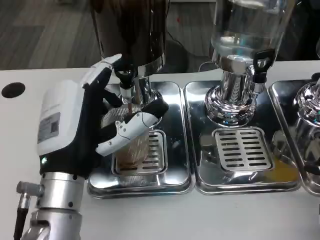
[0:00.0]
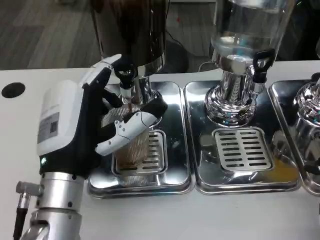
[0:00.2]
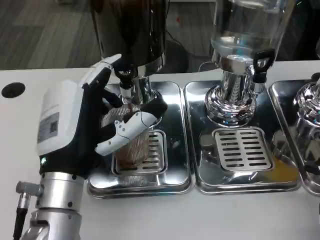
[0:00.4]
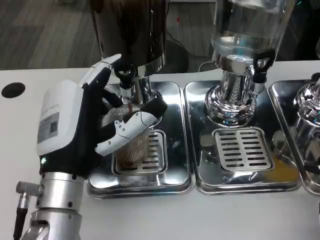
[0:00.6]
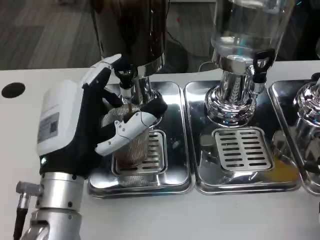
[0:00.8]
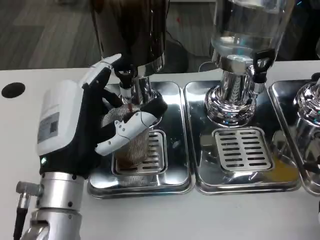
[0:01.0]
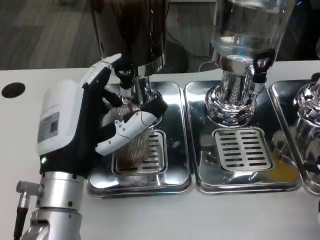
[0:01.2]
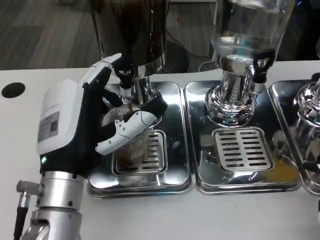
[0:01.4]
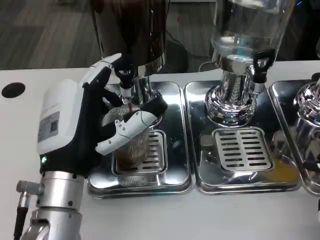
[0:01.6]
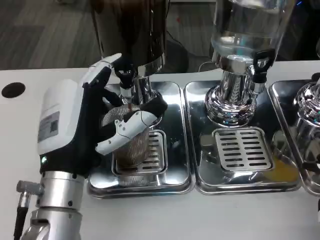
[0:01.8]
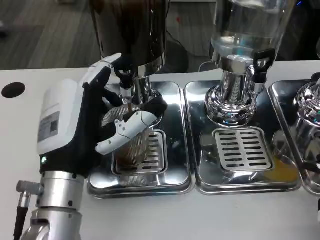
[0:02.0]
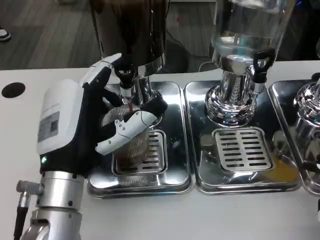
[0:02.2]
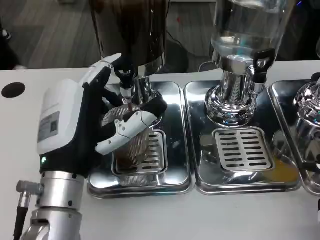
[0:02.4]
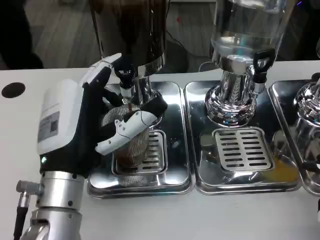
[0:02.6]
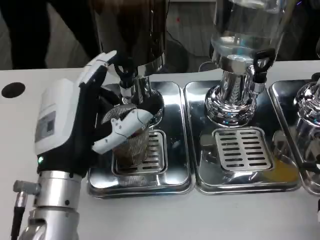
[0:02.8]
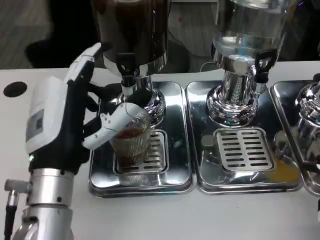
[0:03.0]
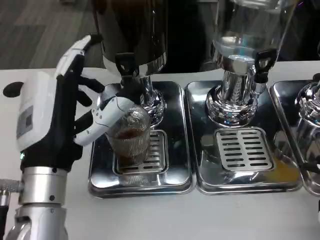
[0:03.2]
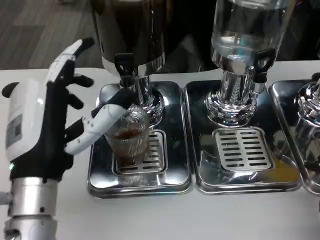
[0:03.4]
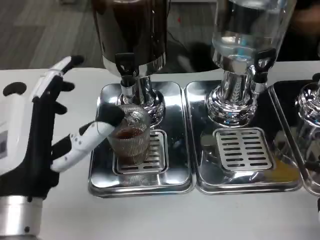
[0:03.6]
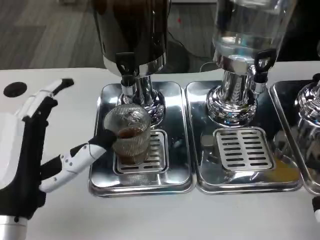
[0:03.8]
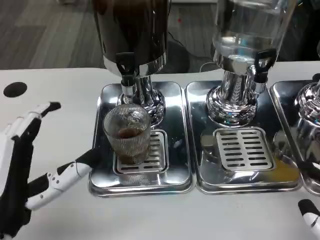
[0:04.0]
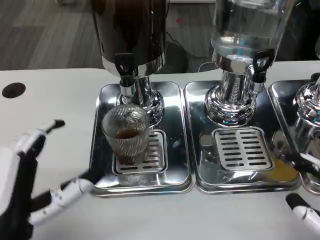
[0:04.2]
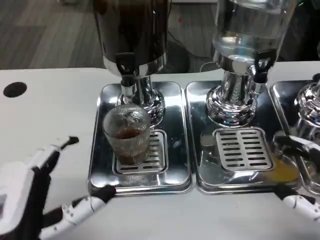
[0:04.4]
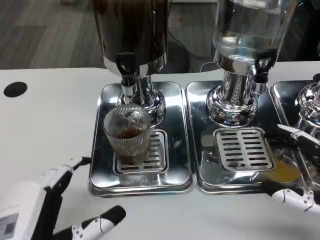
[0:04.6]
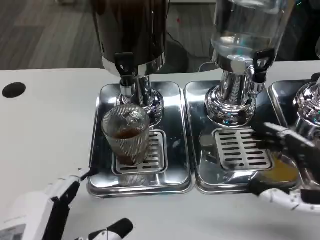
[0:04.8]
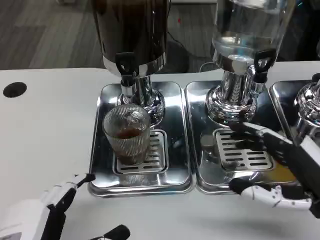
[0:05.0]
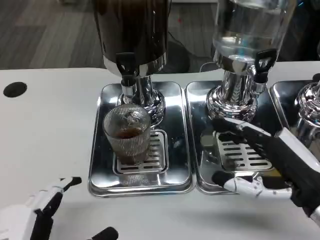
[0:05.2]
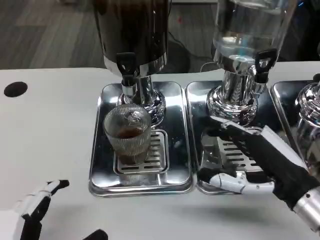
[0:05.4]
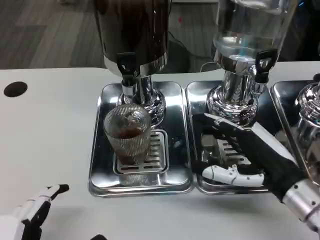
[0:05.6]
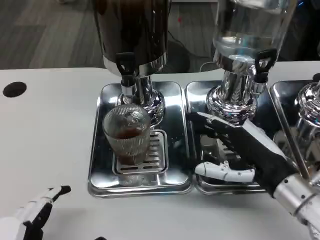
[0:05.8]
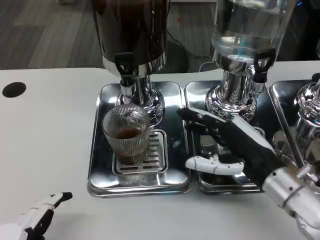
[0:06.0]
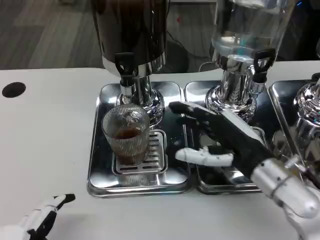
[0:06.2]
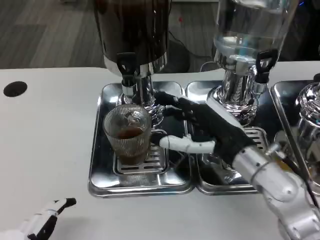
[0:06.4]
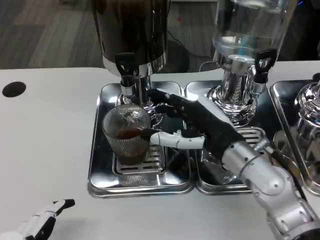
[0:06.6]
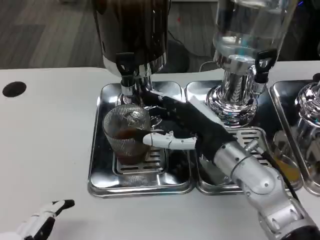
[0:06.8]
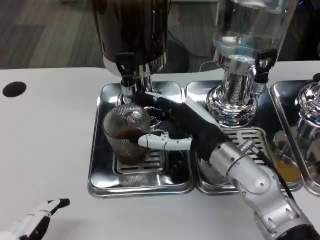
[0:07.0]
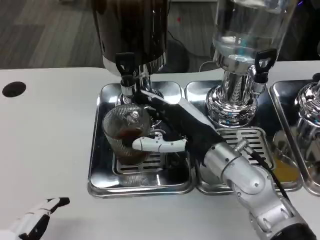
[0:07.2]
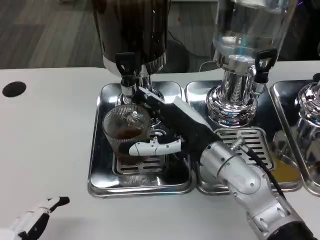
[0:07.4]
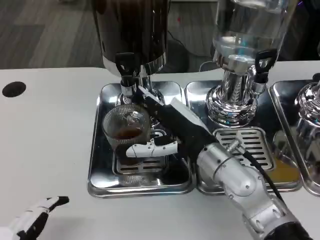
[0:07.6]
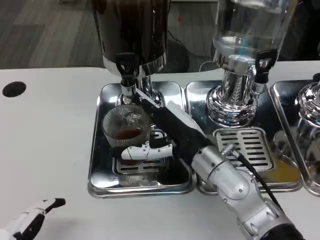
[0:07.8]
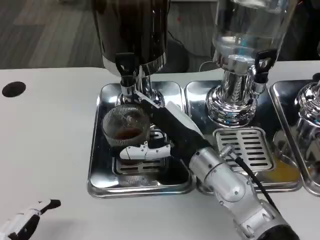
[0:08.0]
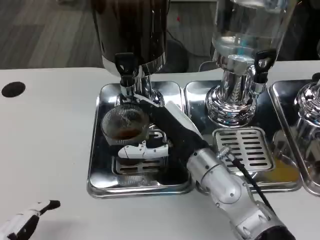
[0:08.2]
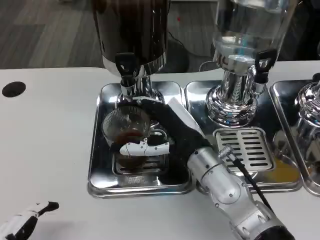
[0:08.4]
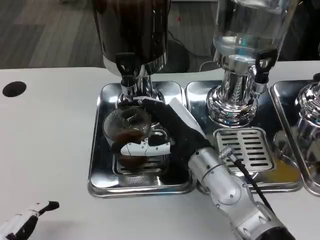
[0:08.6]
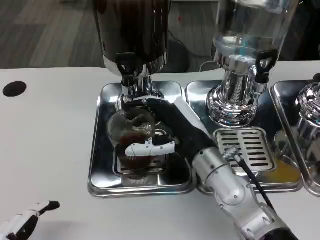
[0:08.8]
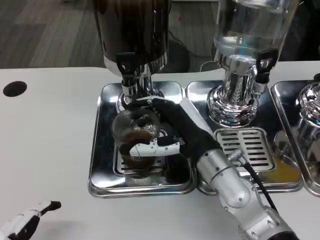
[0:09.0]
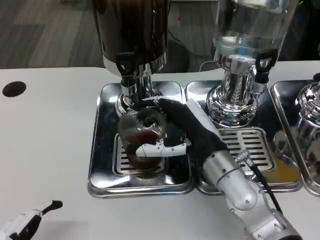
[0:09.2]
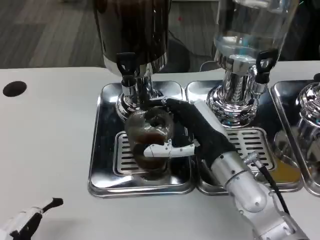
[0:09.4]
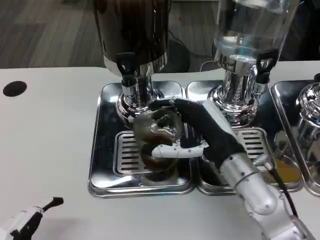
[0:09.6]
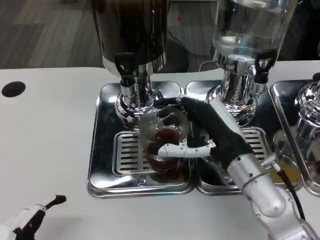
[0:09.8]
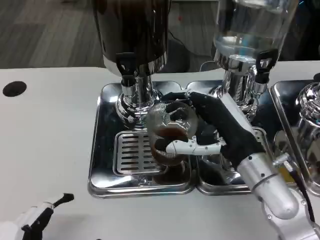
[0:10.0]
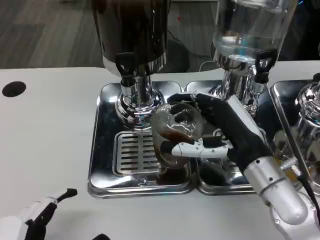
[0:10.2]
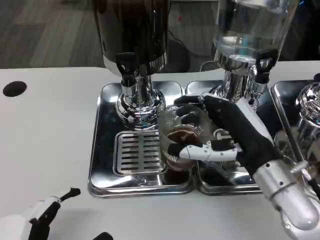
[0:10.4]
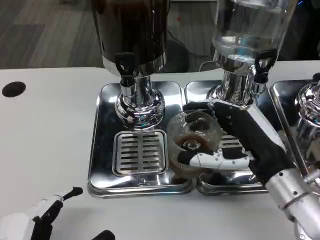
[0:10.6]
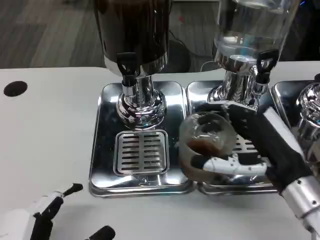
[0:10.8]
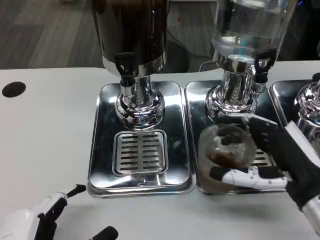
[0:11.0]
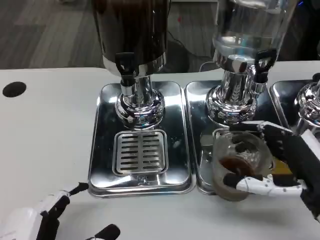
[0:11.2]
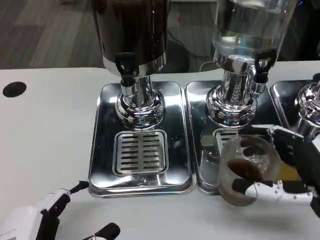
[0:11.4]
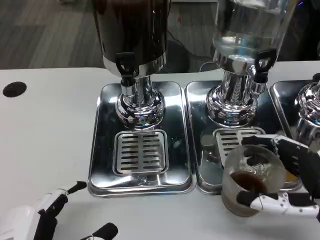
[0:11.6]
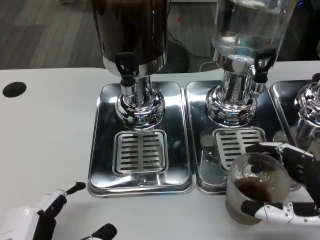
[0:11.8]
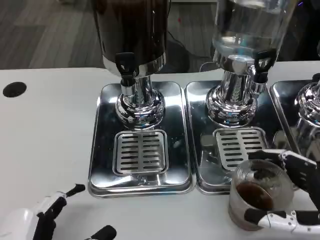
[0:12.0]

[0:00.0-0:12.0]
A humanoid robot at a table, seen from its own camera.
Task of the whole recording: Grasp the cup under the faucet to collect the drink, then remove the cup.
0:00.0 to 0:01.6: Both hands stay put.
0:03.0 to 0:04.4: The left hand travels backward by roughly 10 cm, while the right hand moves forward, about 5 cm.
0:04.4 to 0:06.0: The left hand moves backward, about 5 cm, while the right hand moves forward and to the left, some 15 cm.
0:06.0 to 0:07.6: The right hand heads to the left, covering some 10 cm.
0:07.6 to 0:09.0: There are only small adjustments of the hands.
0:09.0 to 0:10.4: The right hand is displaced to the right by some 10 cm.
0:10.4 to 0:12.0: The right hand travels backward and to the right by roughly 15 cm.

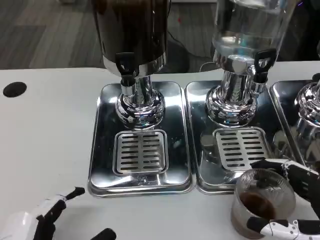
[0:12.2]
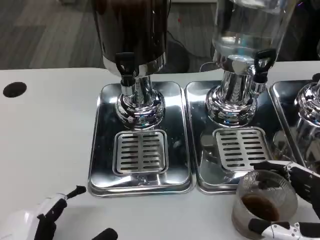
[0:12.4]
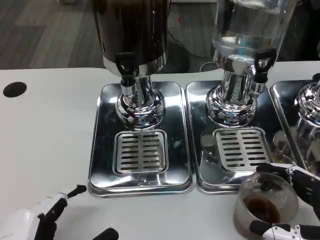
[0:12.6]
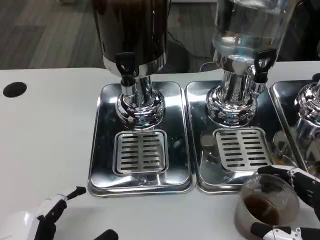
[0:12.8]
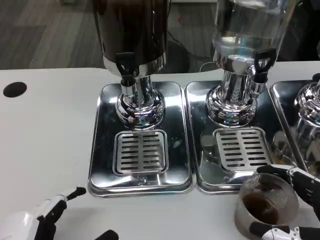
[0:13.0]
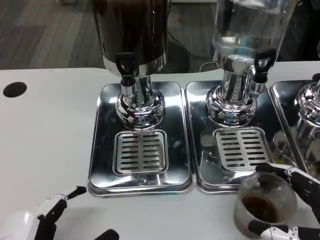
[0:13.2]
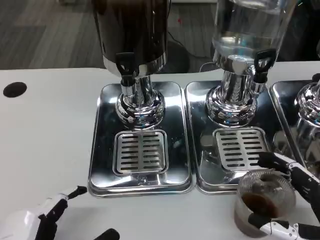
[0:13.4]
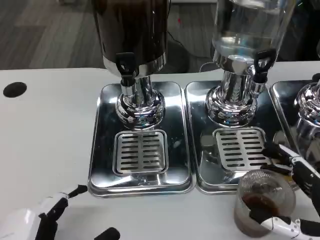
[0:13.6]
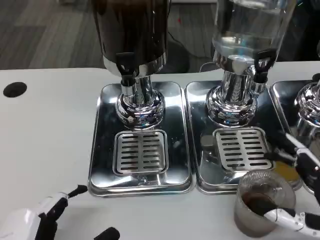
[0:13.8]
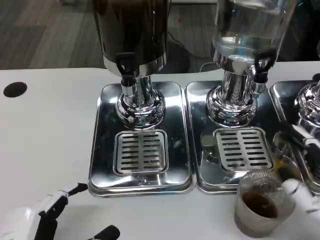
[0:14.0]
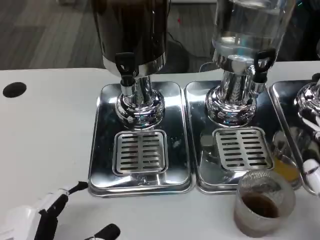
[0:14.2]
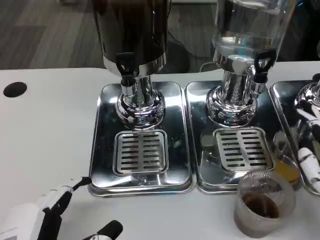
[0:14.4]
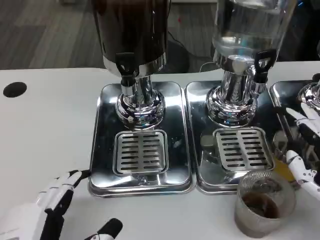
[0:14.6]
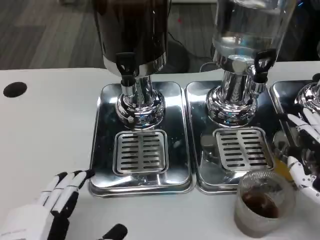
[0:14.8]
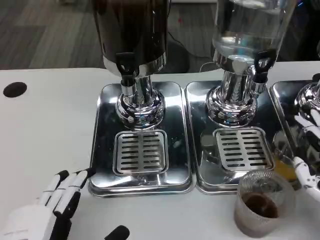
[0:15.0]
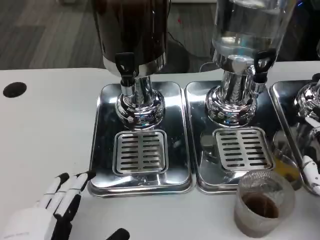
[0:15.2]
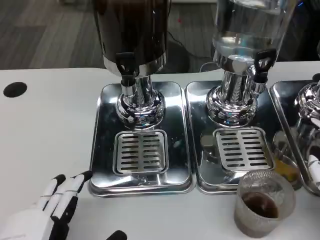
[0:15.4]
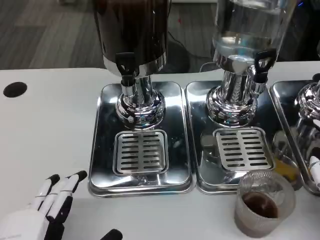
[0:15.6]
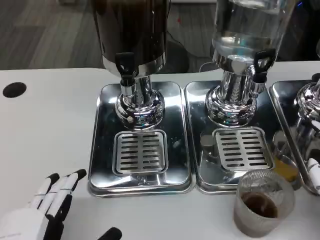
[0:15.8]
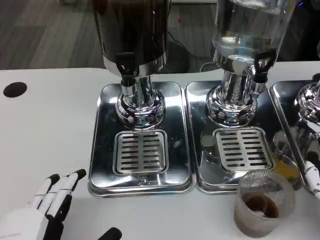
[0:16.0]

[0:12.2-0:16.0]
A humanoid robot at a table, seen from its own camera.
Task of the whole recording: Grasp the cup under the faucet to collect the drink, then remove the cup.
0:12.2 to 0:13.4: There are only small adjustments of the hands.
0:13.4 to 0:14.8: The right hand moves about 5 cm.
0:14.8 to 0:16.0: The hands stay close to where they were, moving slightly.

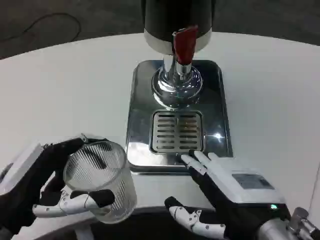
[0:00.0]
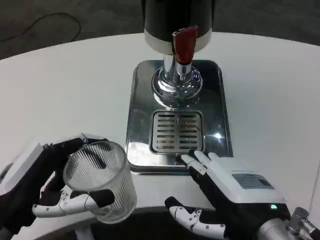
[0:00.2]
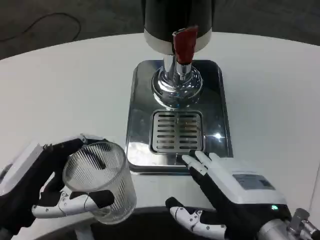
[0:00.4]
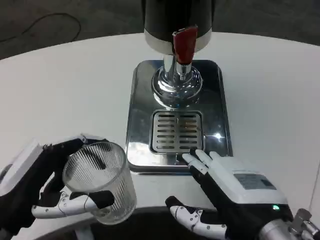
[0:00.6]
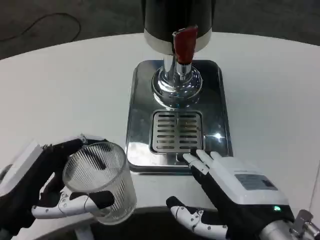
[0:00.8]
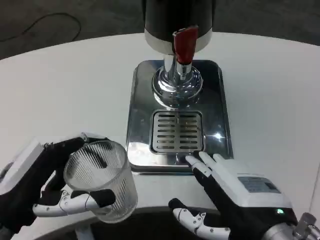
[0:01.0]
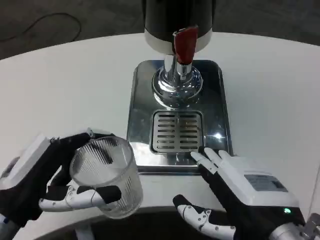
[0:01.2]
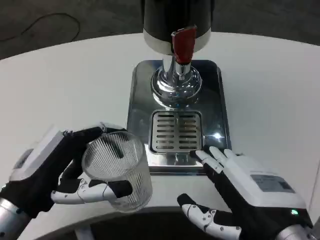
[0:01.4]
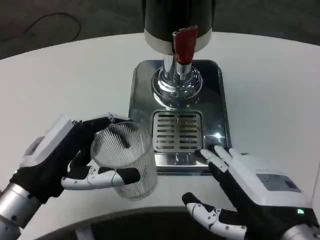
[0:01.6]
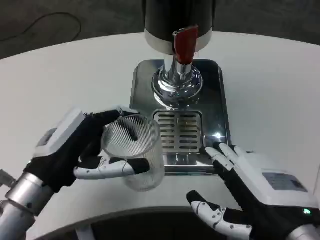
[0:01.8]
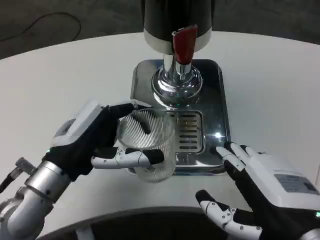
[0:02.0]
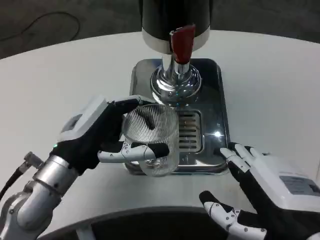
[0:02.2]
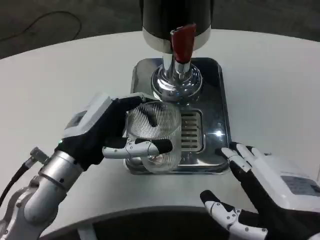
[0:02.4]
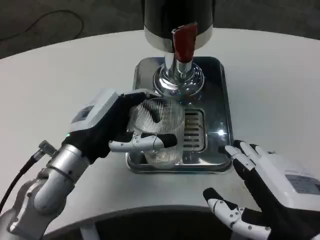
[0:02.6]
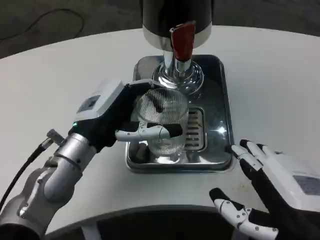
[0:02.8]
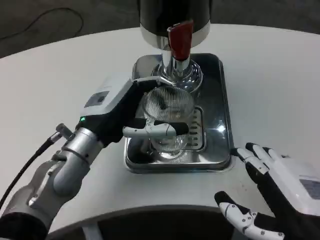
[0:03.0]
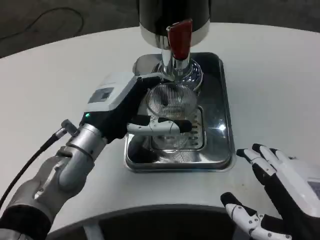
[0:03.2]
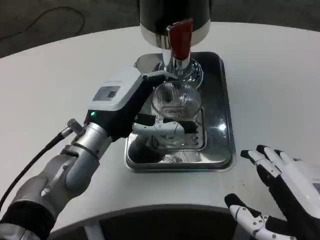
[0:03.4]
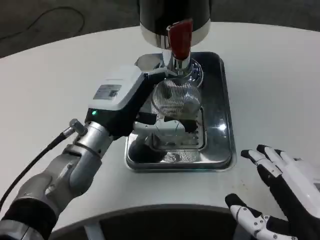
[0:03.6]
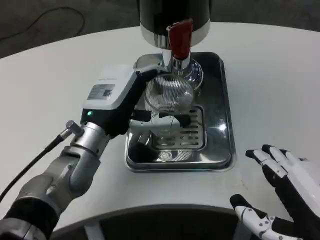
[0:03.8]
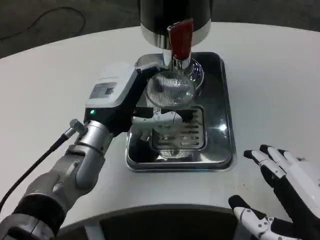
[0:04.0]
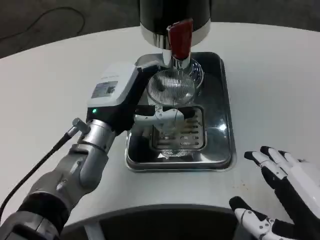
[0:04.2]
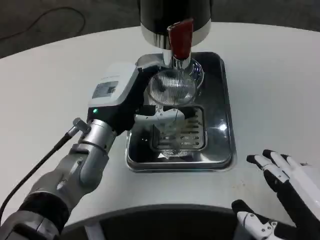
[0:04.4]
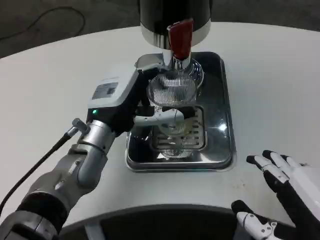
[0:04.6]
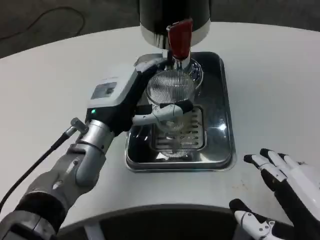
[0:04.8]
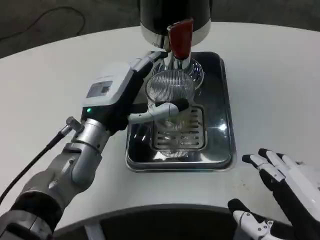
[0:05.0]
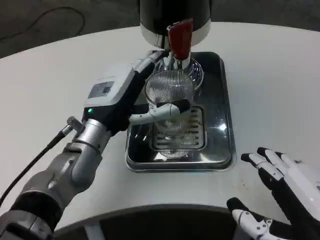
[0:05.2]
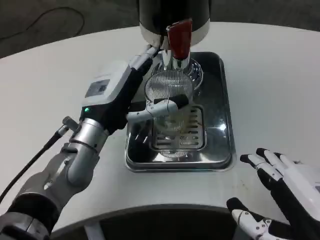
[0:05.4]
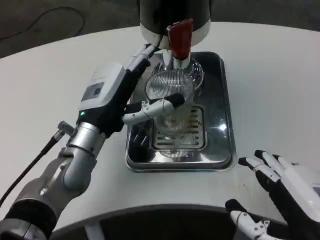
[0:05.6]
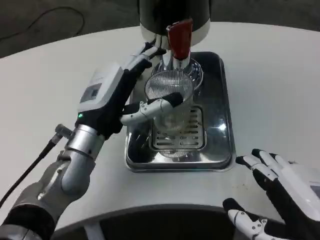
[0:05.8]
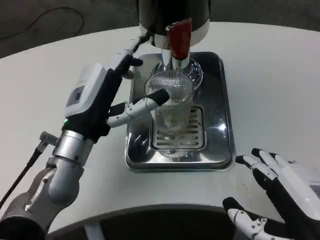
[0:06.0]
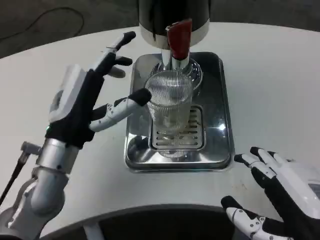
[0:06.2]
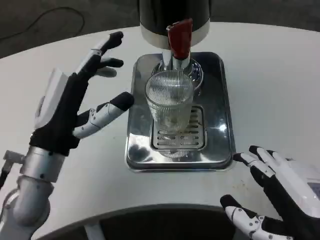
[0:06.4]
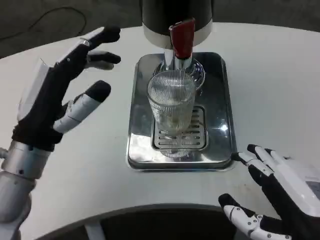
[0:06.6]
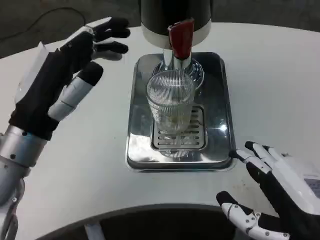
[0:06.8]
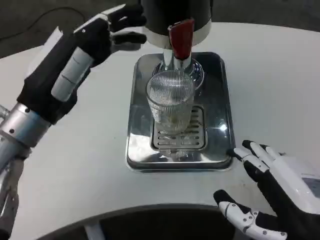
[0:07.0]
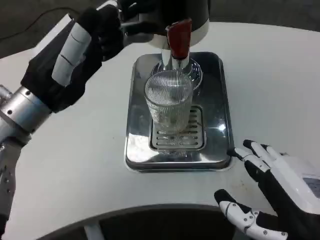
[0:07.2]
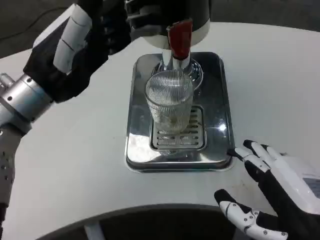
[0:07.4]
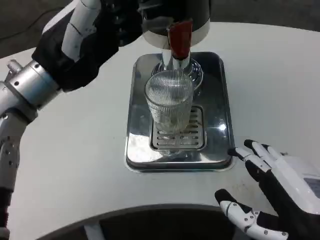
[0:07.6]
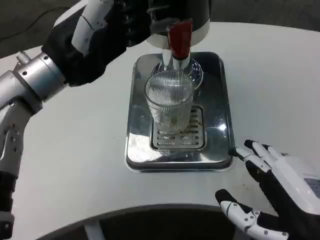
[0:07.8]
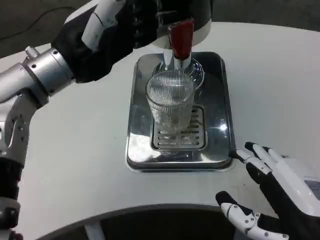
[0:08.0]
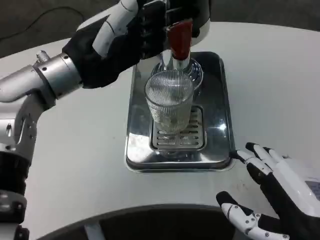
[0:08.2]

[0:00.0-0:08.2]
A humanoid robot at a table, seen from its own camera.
Task of the whole recording: Grasp the cup under the faucet to collect the drink, then remove the cup.
0:01.6 to 0:03.2: The left hand shifts roughly 10 cm forward and to the right.
0:03.2 to 0:05.0: The hands make only small movements.
0:05.0 to 0:06.6: The left hand is displaced to the left and backward by some 10 cm.
0:06.6 to 0:08.2: The left hand travels upward and forward by about 15 cm.
